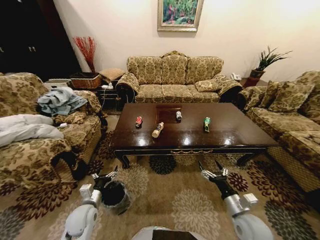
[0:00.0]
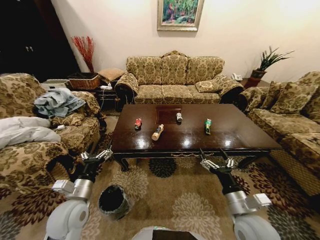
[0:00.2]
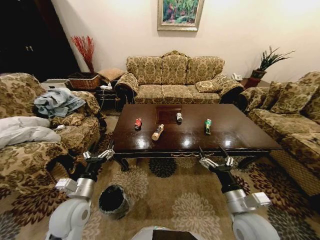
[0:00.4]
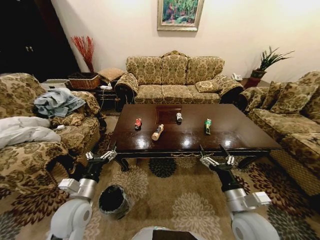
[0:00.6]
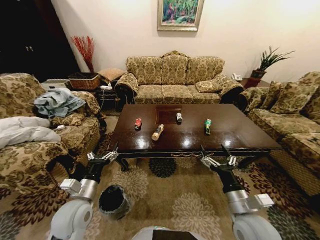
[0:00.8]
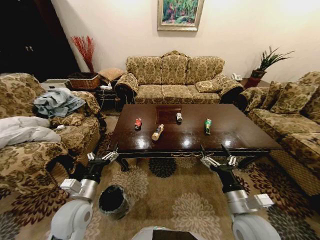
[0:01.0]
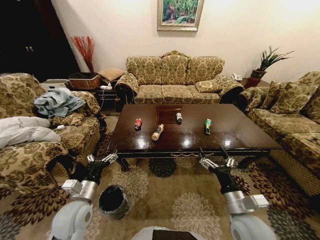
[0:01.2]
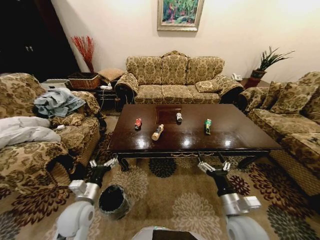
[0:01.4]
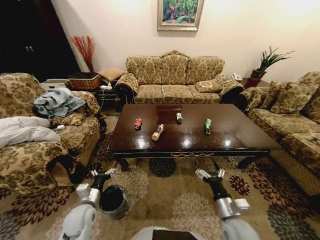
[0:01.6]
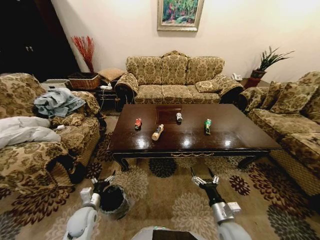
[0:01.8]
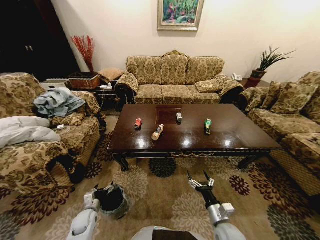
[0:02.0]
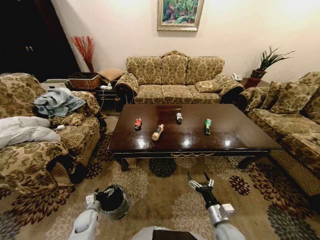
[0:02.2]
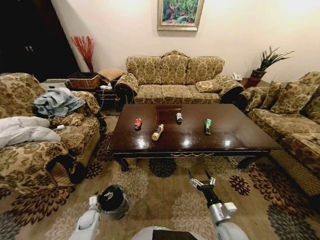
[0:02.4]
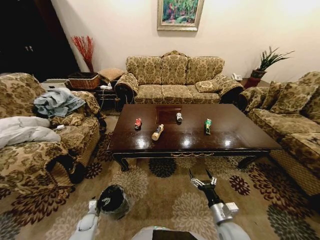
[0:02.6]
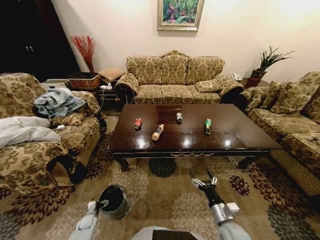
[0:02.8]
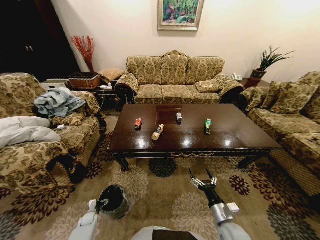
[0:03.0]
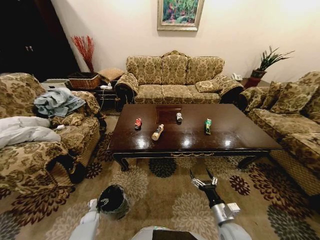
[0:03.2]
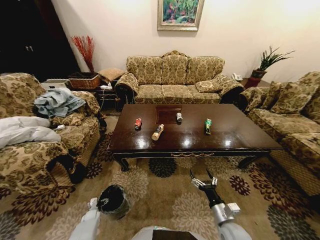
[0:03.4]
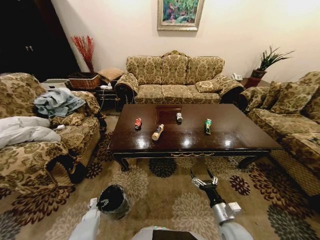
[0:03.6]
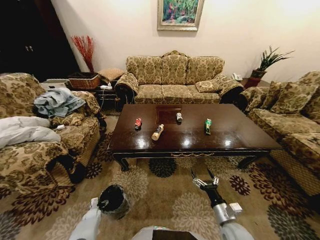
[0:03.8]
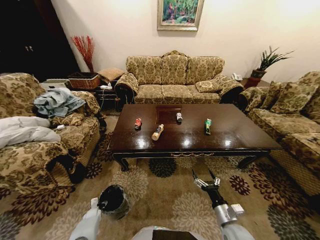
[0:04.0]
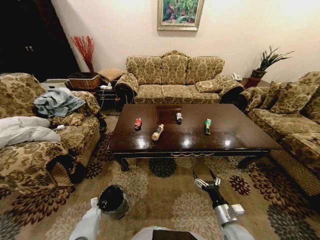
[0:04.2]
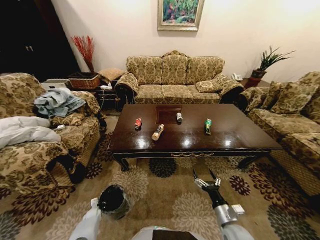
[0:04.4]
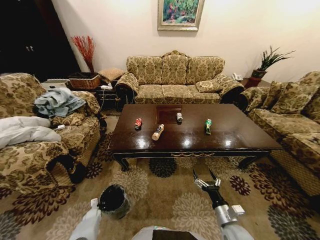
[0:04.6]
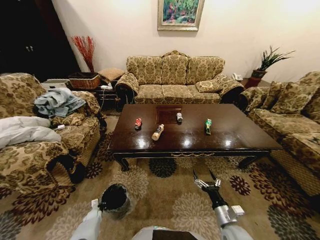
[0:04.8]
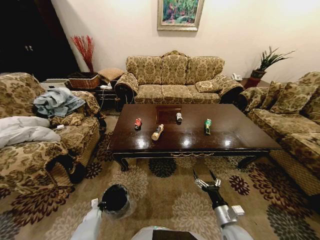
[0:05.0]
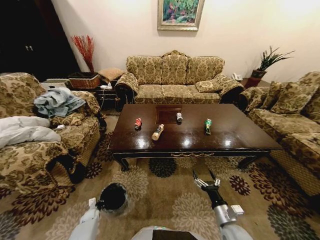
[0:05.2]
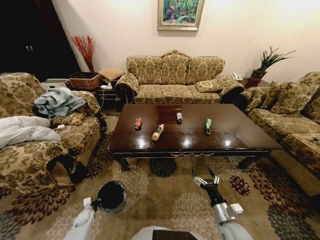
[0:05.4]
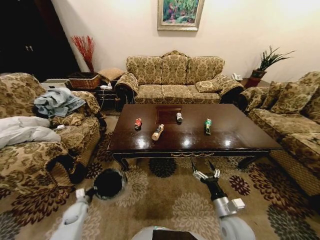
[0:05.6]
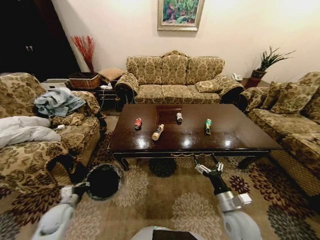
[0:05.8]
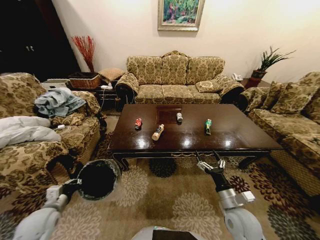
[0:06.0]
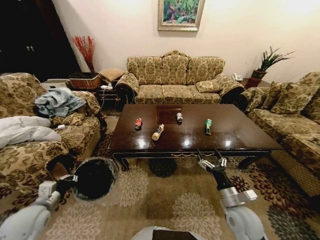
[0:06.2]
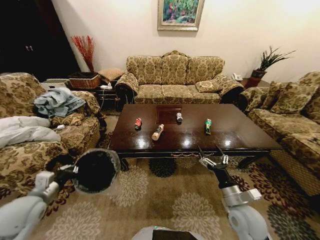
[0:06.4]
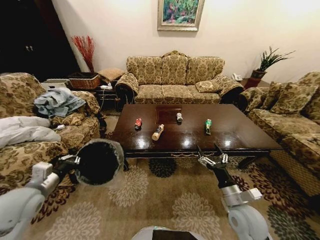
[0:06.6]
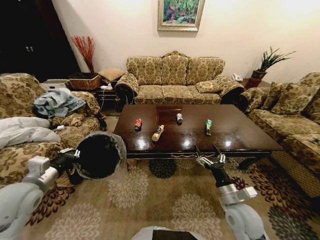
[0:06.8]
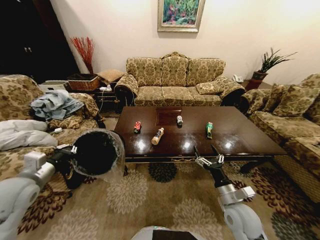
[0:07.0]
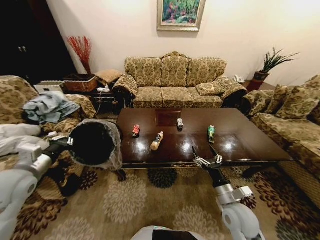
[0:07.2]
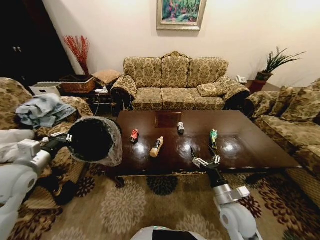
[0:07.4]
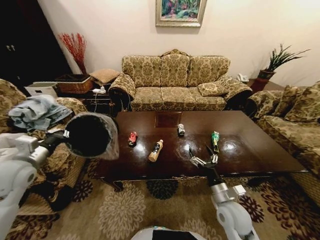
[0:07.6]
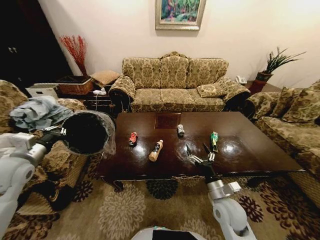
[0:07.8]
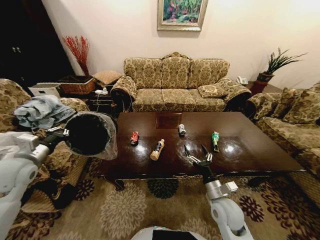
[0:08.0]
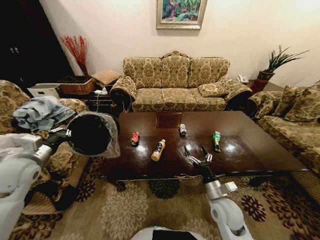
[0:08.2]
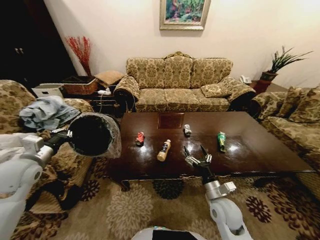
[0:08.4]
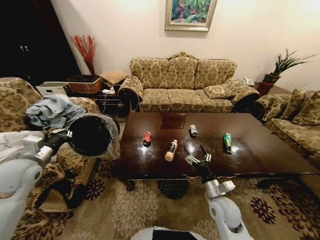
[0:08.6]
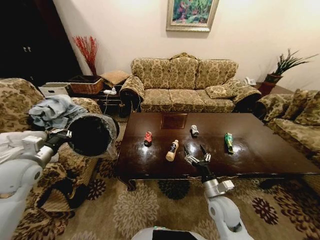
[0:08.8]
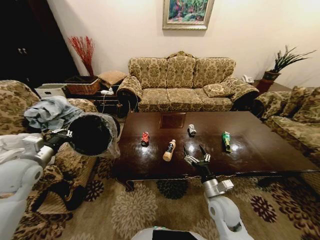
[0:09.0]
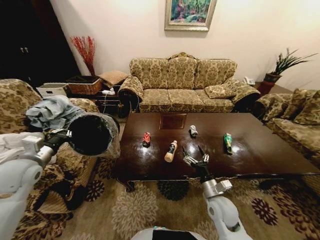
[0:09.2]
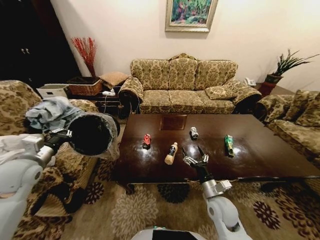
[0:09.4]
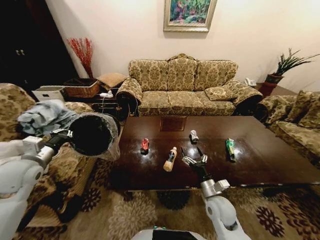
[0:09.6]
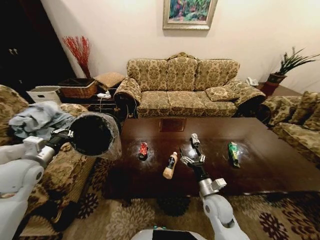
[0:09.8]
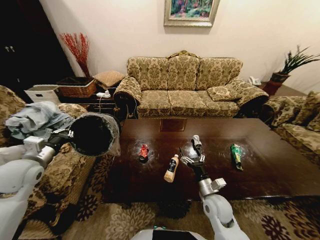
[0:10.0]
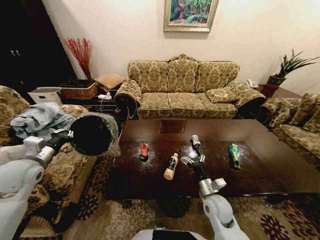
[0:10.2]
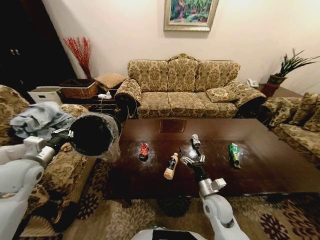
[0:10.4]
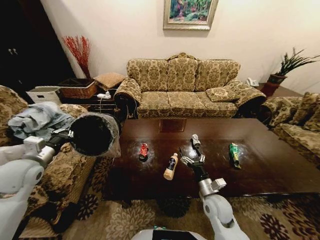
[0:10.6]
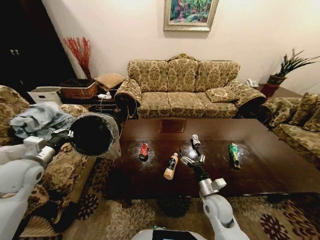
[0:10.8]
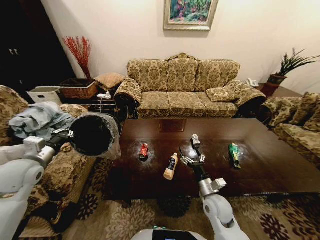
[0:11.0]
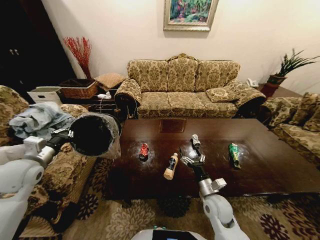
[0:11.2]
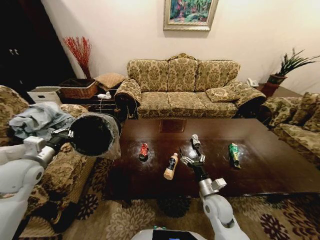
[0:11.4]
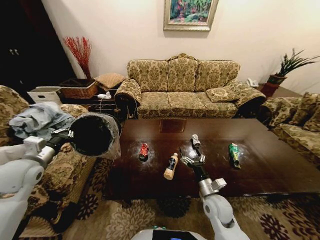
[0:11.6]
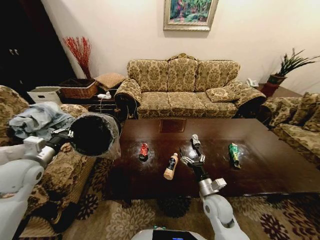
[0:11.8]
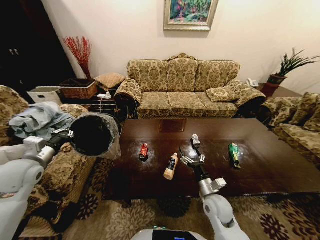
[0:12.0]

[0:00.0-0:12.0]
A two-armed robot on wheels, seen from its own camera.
Task of the whole recording: Move to the front of the table and place the trash on the table into the trash bin.
0:01.6 to 0:03.0: The left gripper travels downward by approximately 30 cm, while the right gripper travels downward by approximately 5 cm.
0:03.0 to 0:04.4: The left gripper closes.
0:04.4 to 0:06.0: The right gripper travels upward by about 5 cm; the left gripper goes some 35 cm upward, and closes up.
0:06.0 to 0:07.6: The left gripper is displaced upward by about 20 cm.
0:10.4 to 0:12.0: Both grippers stay put.

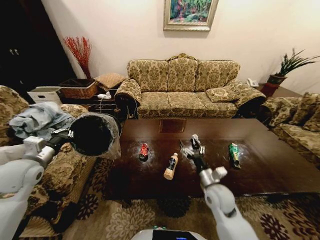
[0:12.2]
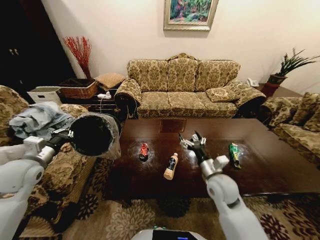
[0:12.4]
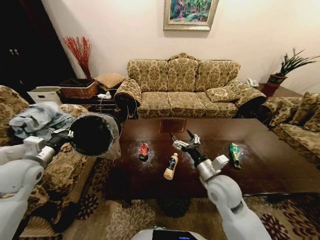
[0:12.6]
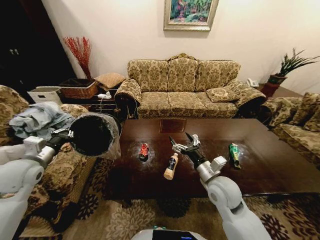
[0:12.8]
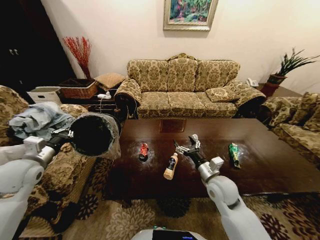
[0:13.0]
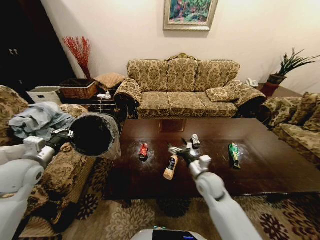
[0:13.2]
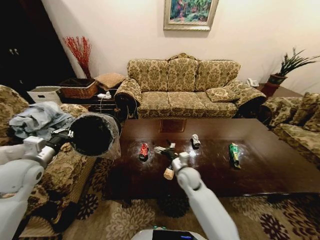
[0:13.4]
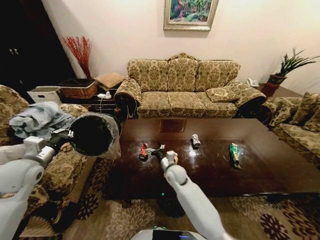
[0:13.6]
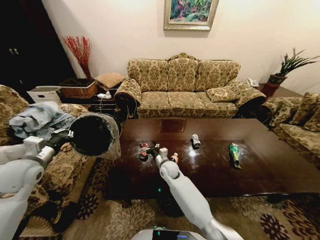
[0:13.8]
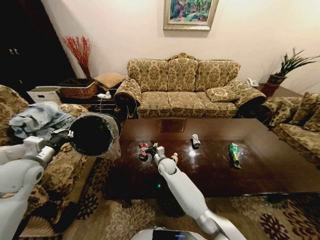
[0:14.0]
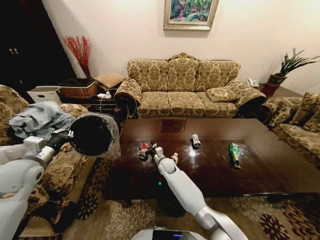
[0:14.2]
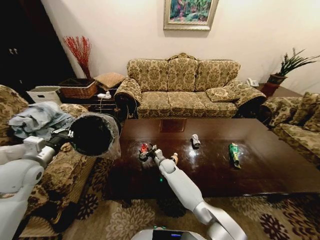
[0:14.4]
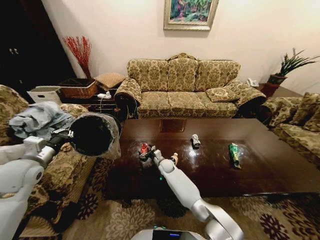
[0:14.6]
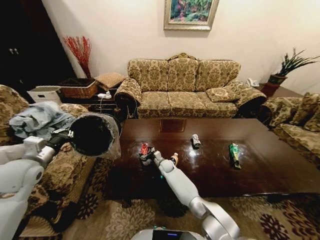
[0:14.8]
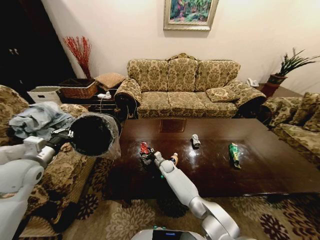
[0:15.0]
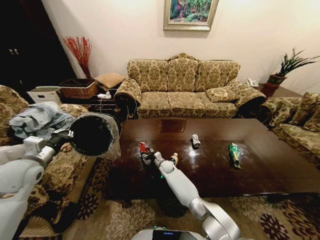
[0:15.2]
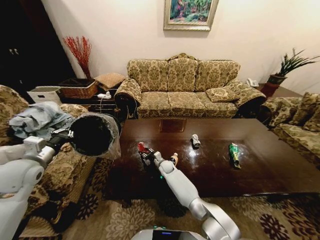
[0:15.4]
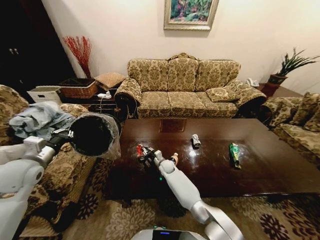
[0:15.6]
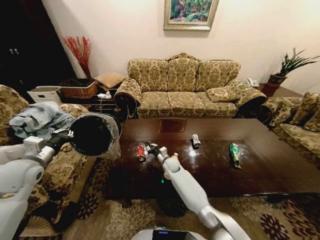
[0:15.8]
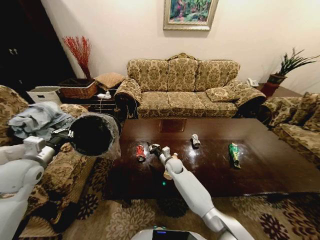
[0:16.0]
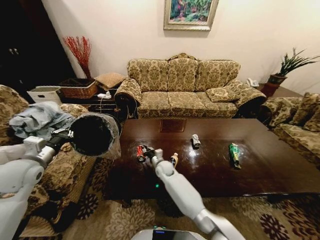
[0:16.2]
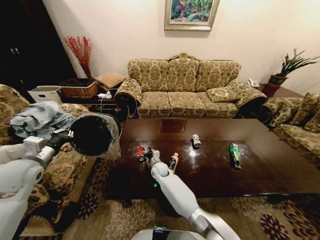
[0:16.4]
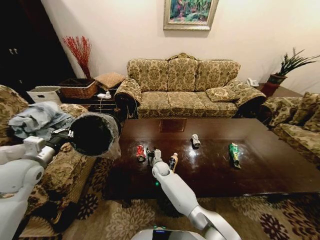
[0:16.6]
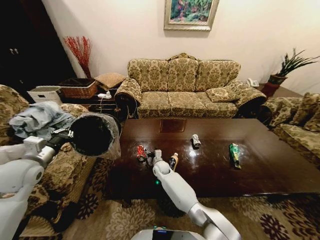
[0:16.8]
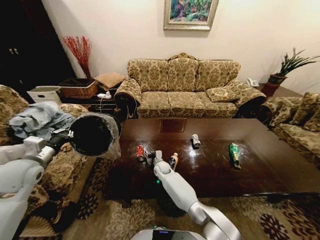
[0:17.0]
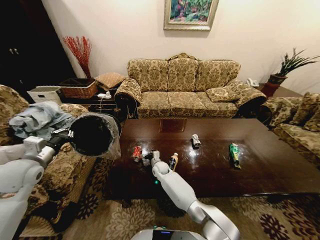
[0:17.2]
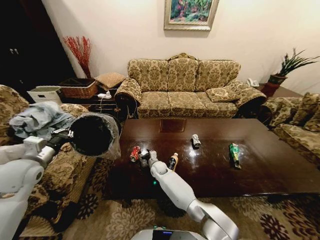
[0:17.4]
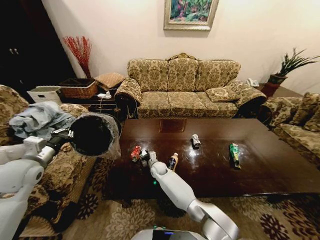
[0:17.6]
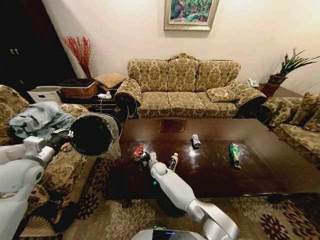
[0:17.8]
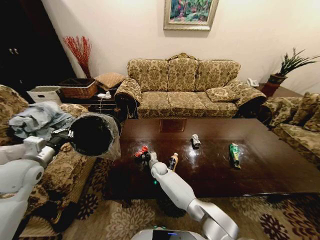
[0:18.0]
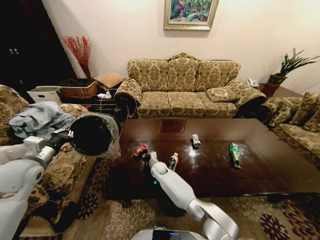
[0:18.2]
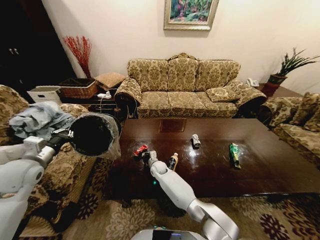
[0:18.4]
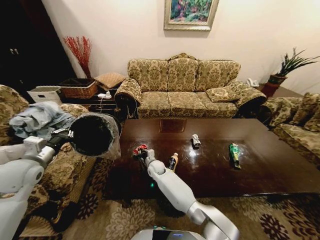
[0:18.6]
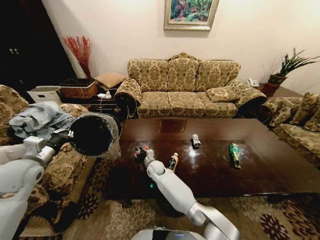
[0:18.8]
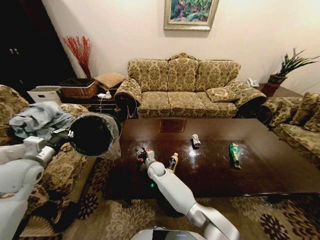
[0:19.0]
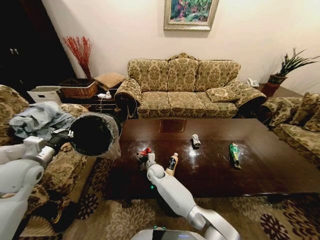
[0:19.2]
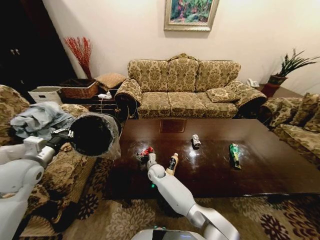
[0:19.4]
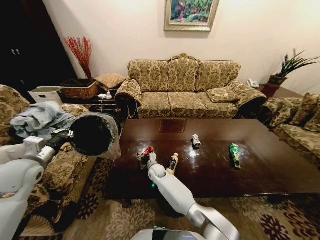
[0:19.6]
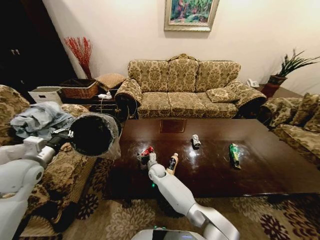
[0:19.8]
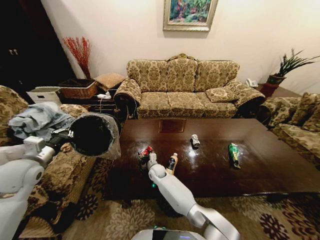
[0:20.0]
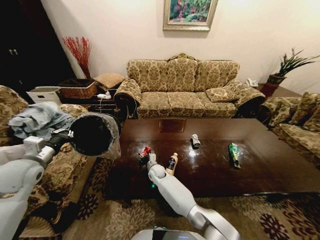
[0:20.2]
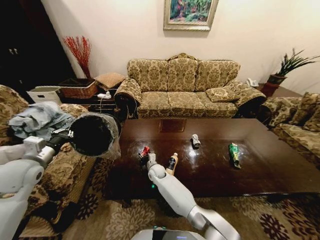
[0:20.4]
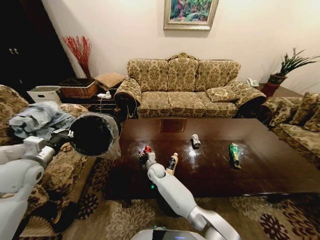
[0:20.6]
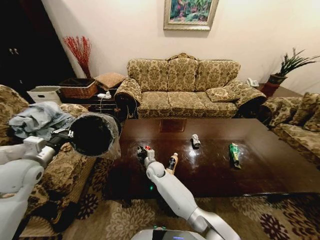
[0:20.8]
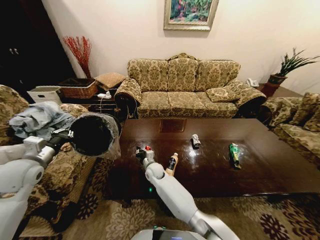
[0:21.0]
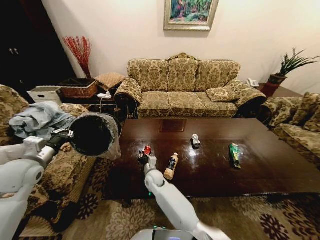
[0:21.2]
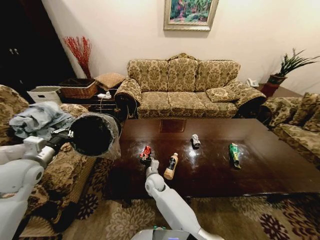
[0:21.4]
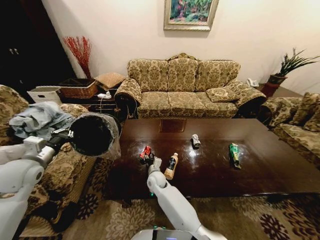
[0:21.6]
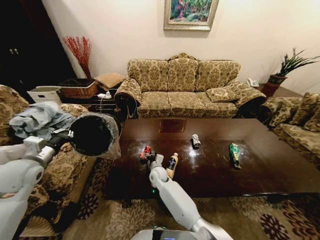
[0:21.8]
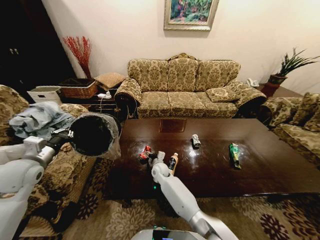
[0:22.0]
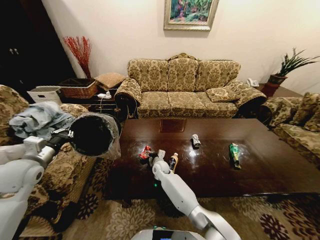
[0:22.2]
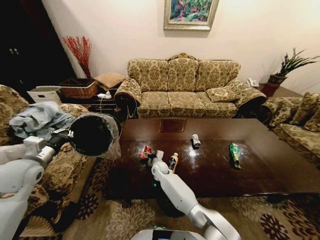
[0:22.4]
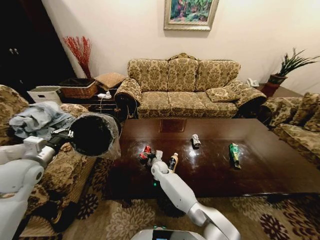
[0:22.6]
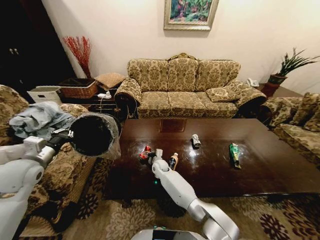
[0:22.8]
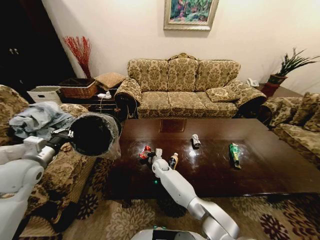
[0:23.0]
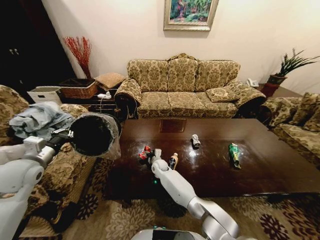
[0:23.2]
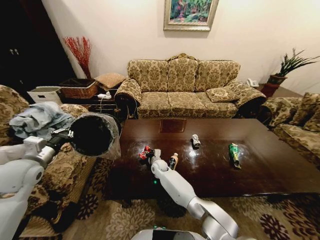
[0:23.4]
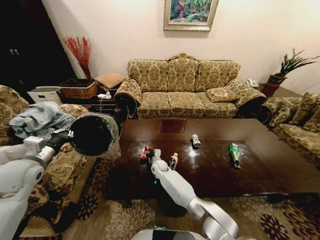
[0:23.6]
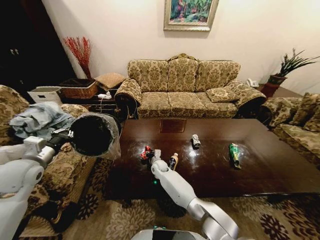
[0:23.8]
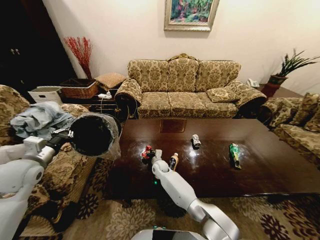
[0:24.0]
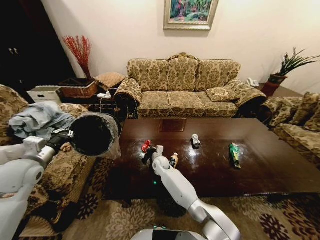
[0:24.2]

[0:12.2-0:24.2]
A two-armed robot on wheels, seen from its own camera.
Task of the whole recording: Move to the front of the table and place the trash on the table into the trash bin.
0:12.2 to 0:13.8: The right gripper travels to the left and forward by some 25 cm.
0:13.8 to 0:15.2: The right gripper shifts roughly 10 cm downward and forward, and closes its fingers.
0:15.2 to 0:16.6: The right gripper shifts by about 5 cm, and closes, then opens again.
0:16.6 to 0:18.2: The right gripper closes.
0:18.2 to 0:19.8: The right gripper opens its fingers.
0:19.8 to 0:21.2: The right gripper shifts approximately 5 cm backward, and closes up.
0:21.2 to 0:22.6: The right gripper moves forward, roughly 10 cm, and opens up.
0:22.6 to 0:24.2: The right gripper closes.
